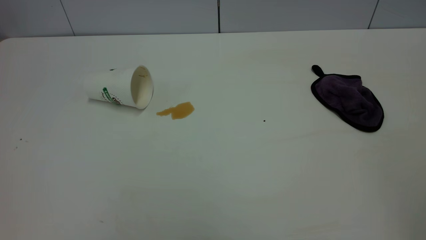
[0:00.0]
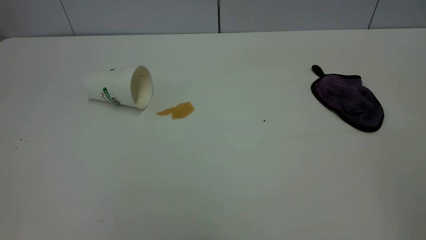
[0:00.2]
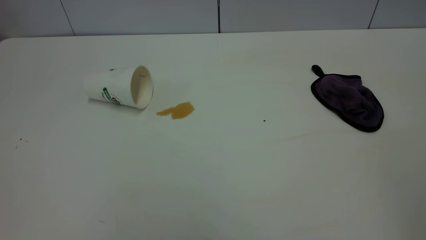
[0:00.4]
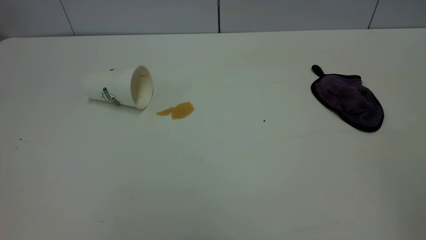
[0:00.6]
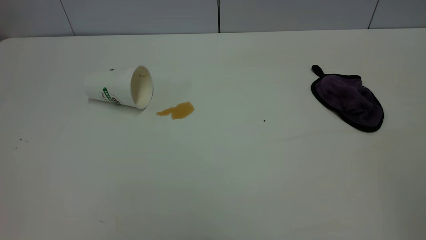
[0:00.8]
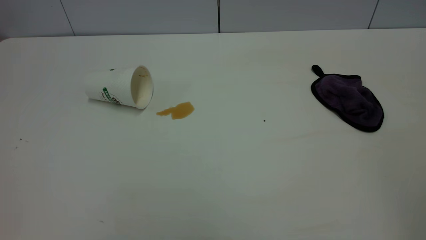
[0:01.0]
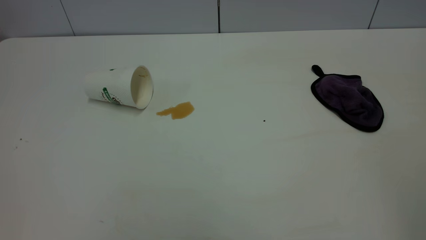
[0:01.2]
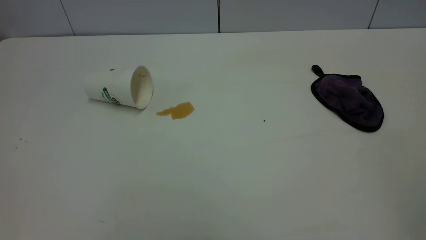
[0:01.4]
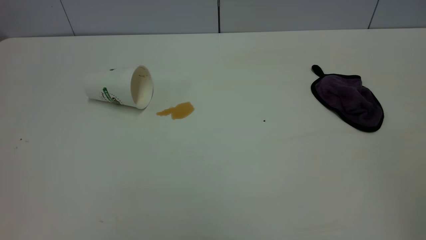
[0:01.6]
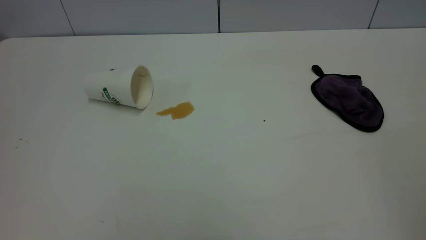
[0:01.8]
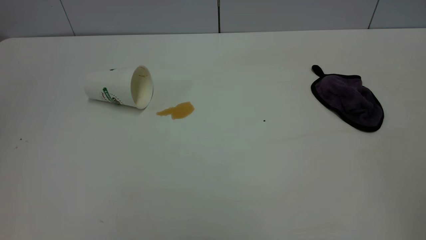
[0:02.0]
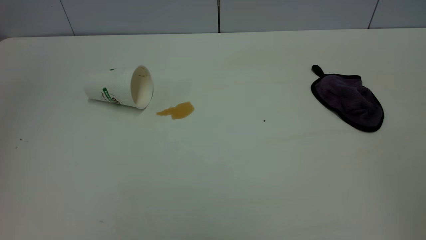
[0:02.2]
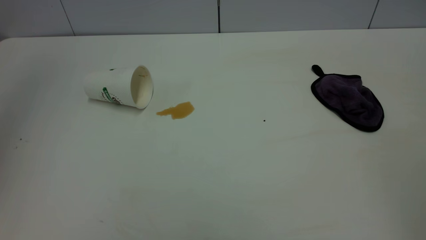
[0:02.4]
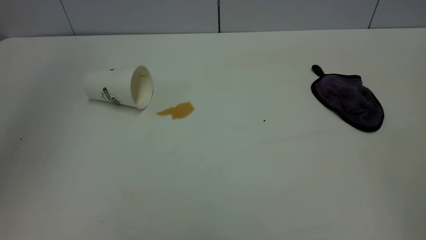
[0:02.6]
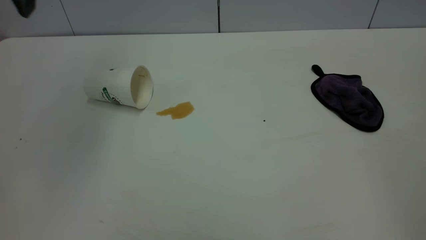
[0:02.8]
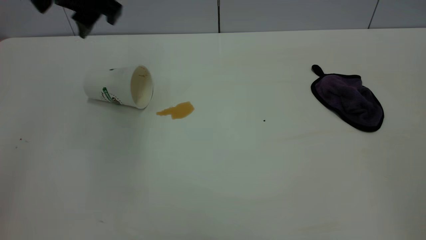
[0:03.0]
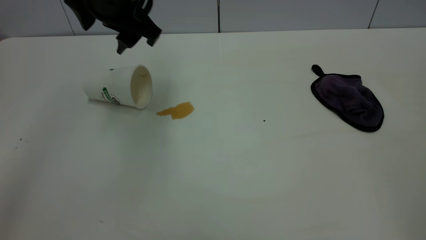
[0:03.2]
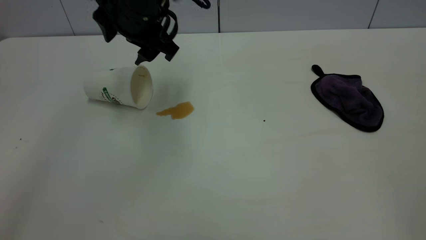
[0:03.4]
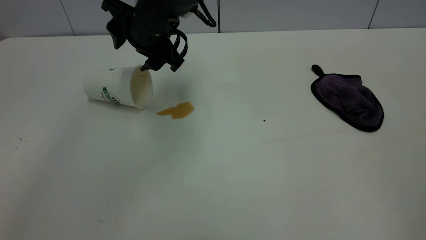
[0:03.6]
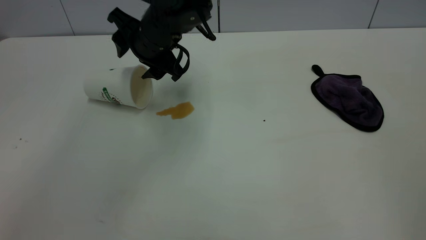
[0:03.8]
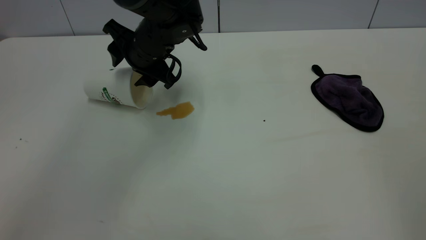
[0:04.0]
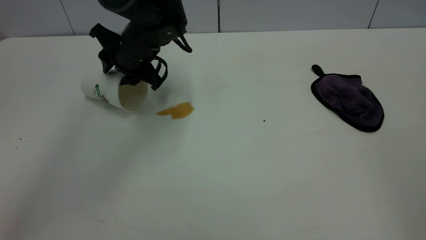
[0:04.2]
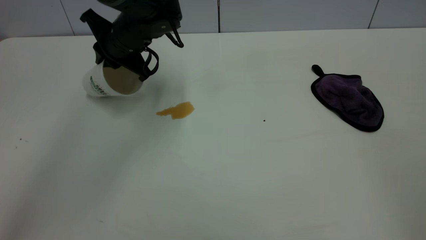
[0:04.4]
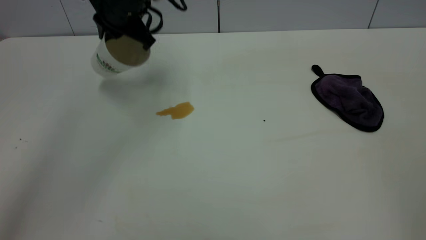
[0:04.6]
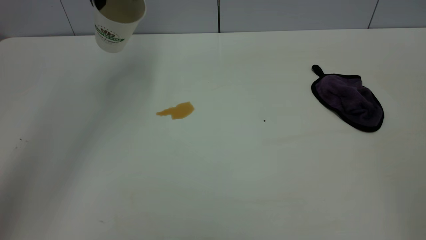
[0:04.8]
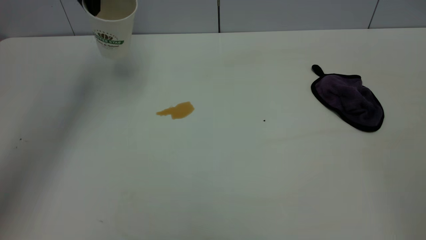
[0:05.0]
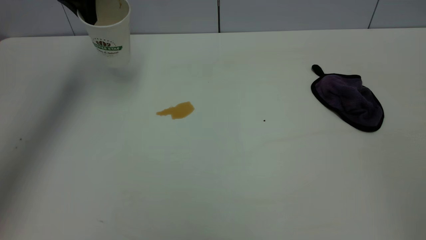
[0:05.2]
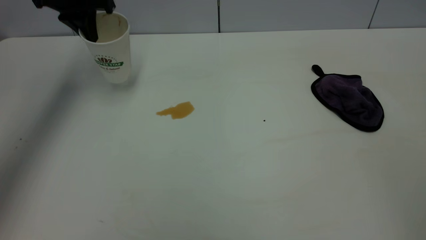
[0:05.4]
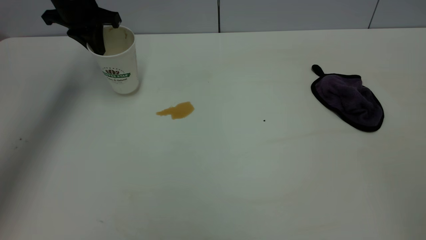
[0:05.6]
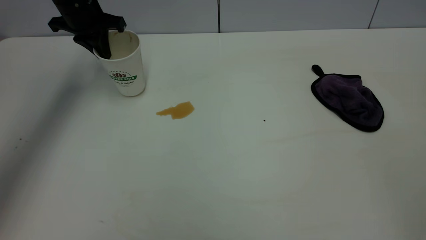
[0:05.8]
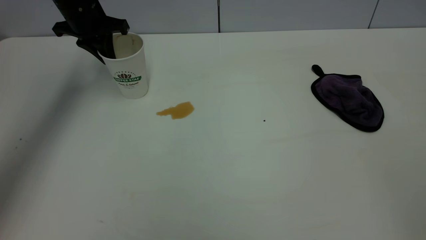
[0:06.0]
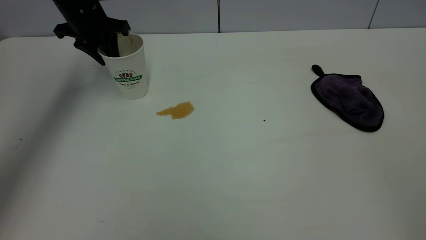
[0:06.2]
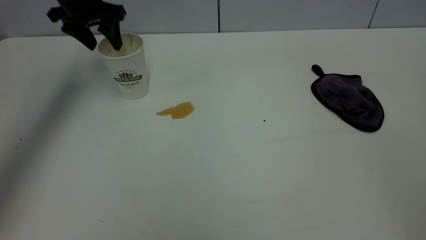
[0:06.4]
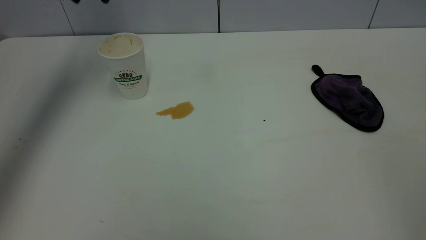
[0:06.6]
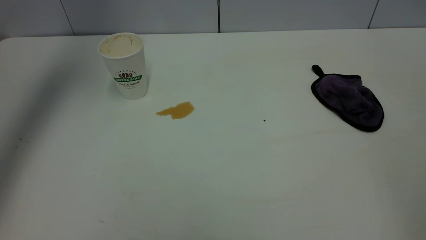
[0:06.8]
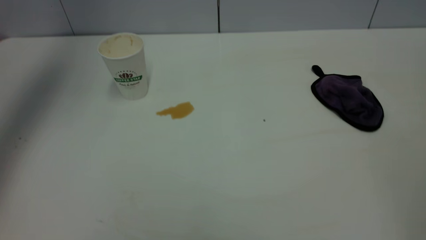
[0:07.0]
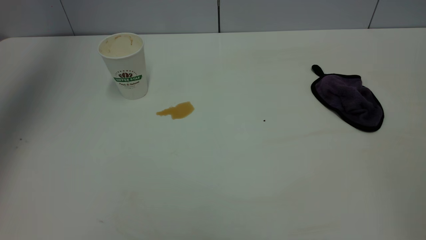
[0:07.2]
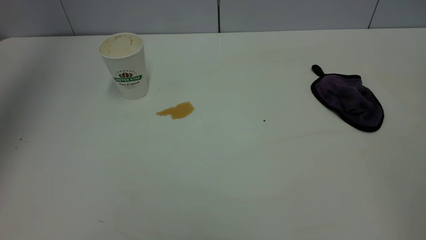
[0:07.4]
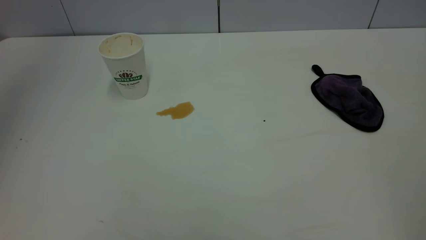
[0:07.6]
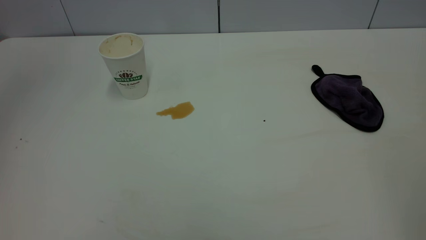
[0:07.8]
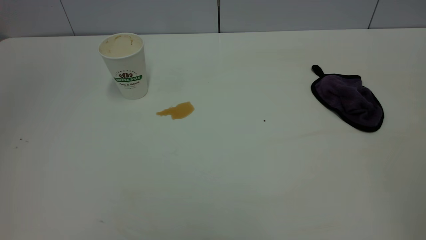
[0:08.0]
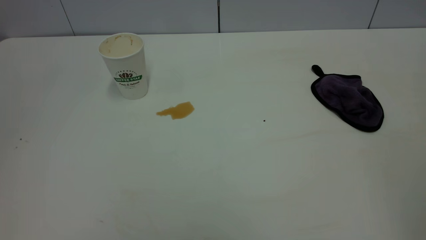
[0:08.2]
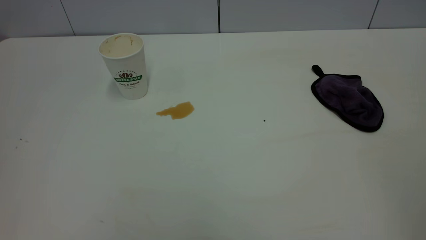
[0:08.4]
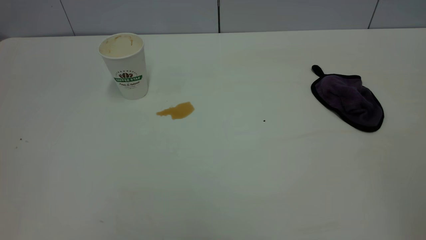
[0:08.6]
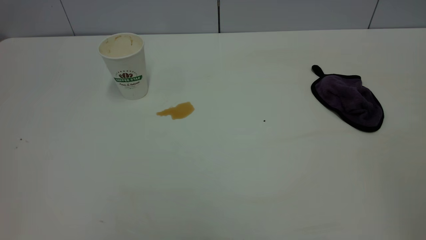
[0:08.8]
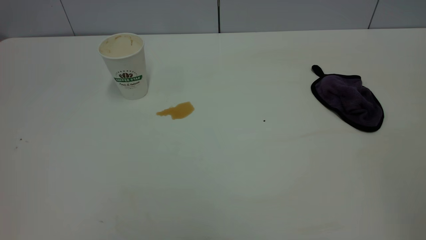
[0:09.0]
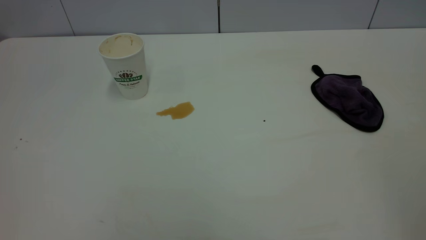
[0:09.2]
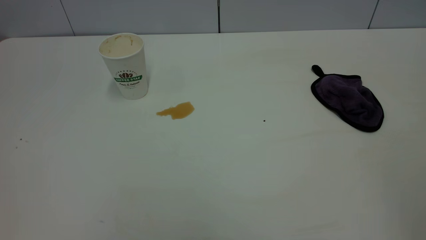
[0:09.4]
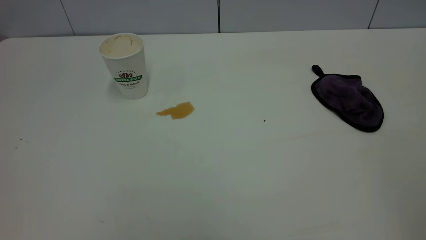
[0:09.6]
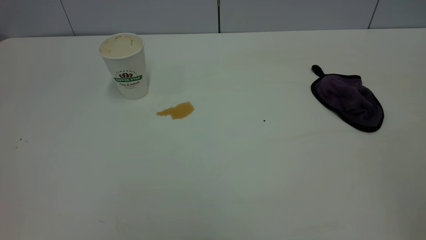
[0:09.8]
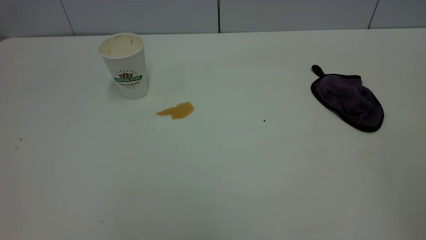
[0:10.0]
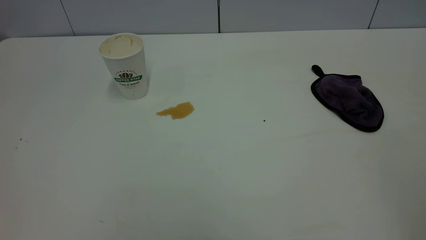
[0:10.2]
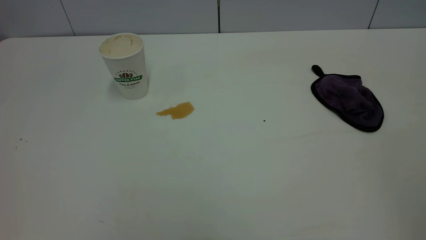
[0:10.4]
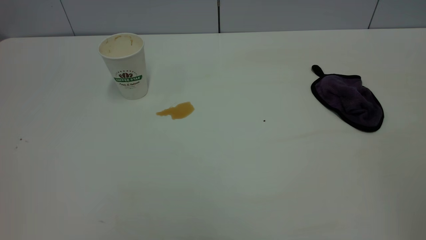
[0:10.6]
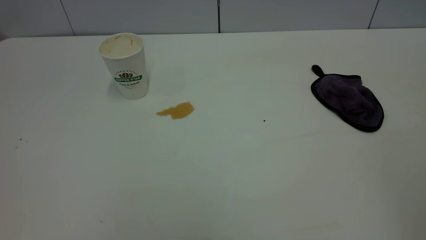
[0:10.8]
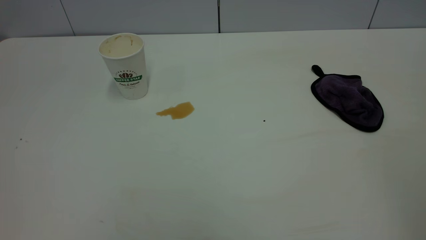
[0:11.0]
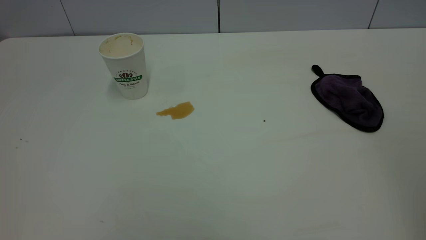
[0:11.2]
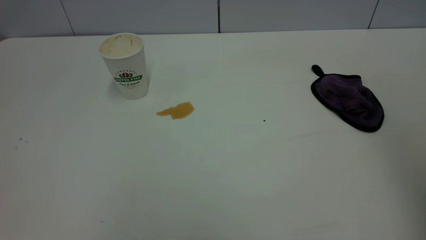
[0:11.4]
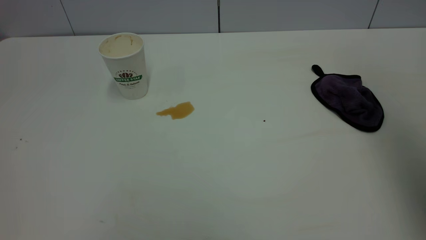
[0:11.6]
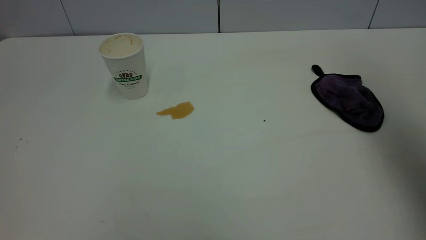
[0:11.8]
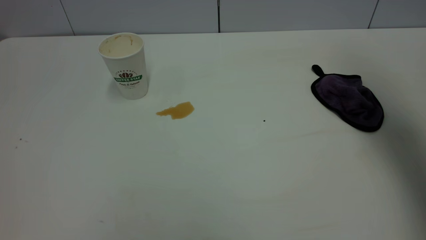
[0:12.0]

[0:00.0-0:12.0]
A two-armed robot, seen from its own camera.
Task of the whole recording: the left gripper pick up the fallen cup and place it upright, the right gripper grasp the purple rag and wipe the tea stain on the table, the right gripper put the purple rag back in its original position.
Step, 0:00.0 to 0:06.4: Stand the paper cup upright.
0:01.6 to 0:03.0: The left gripper is displaced forward and to the right by approximately 40 cm.
0:03.0 to 0:04.4: The left gripper moves downward and forward, approximately 15 cm, and closes.
0:04.4 to 0:06.0: The left gripper moves to the left and forward, roughly 15 cm, and moves approximately 15 cm upward and comes back.
0:06.0 to 0:07.6: The left gripper travels upward and backward by about 50 cm, and opens and closes again.
0:10.4 to 0:12.0: The right gripper moves forward, roughly 35 cm.

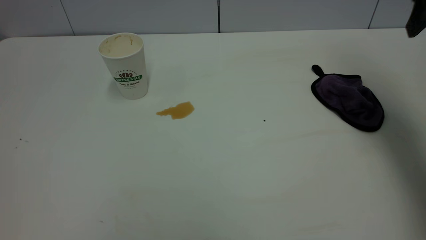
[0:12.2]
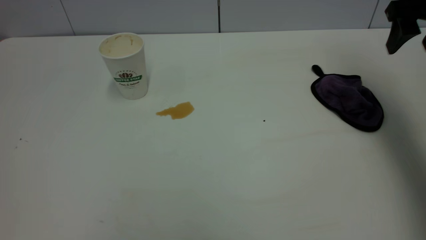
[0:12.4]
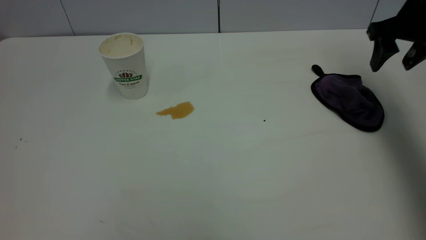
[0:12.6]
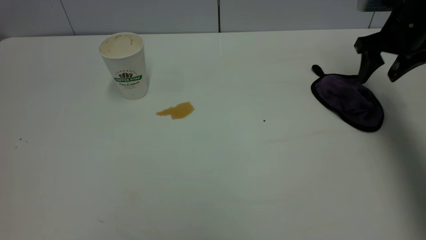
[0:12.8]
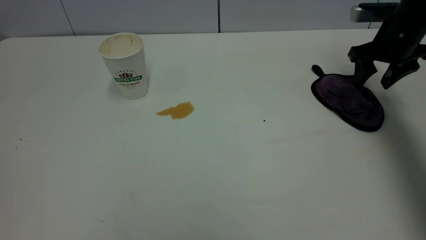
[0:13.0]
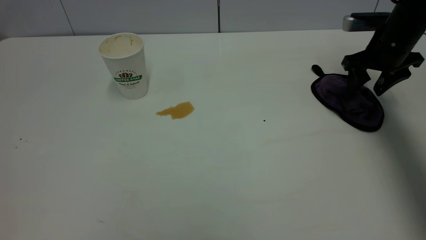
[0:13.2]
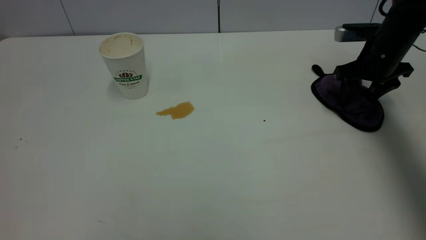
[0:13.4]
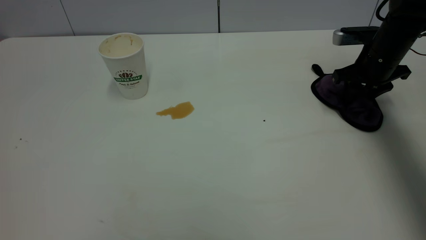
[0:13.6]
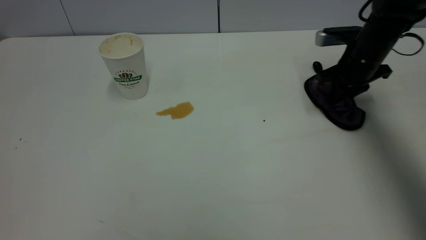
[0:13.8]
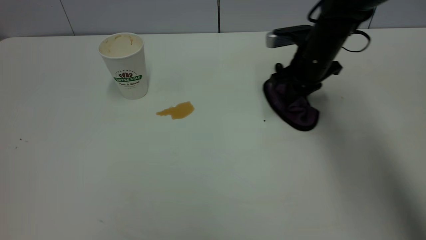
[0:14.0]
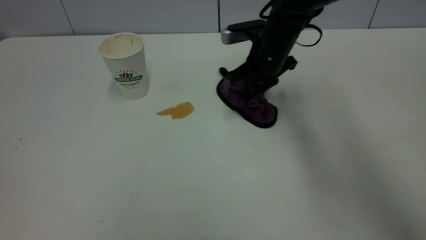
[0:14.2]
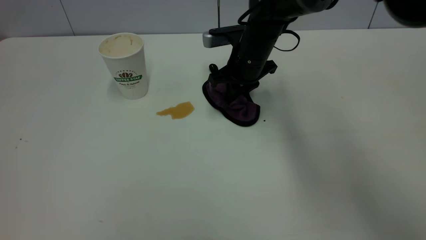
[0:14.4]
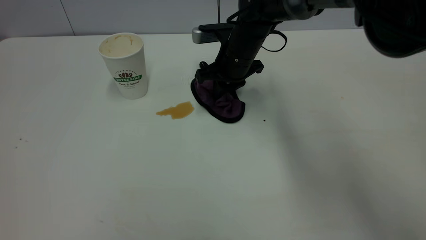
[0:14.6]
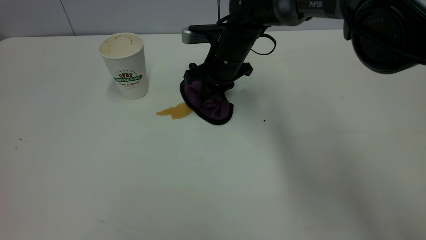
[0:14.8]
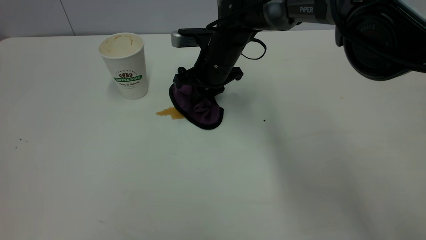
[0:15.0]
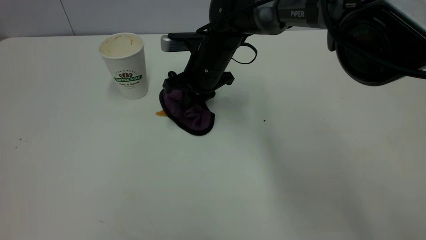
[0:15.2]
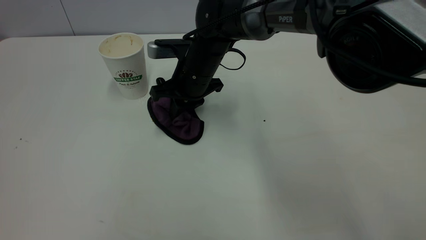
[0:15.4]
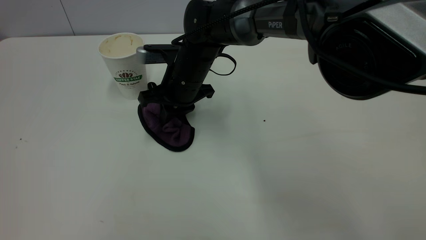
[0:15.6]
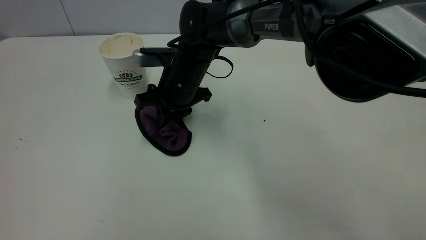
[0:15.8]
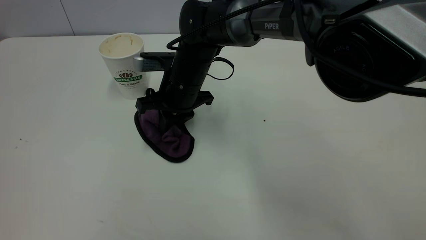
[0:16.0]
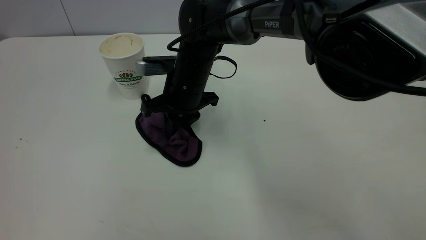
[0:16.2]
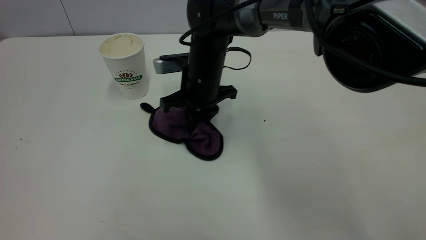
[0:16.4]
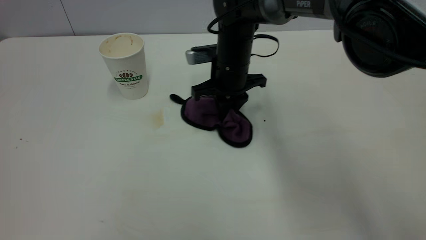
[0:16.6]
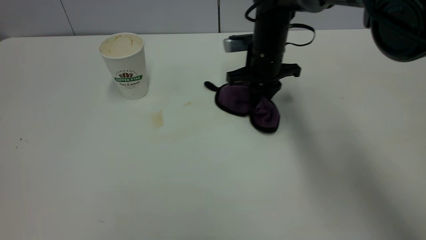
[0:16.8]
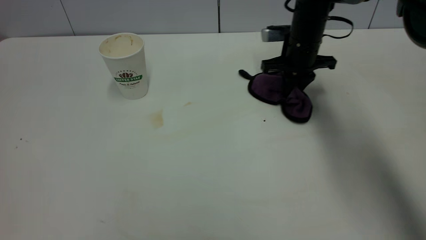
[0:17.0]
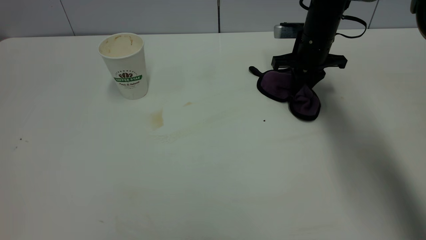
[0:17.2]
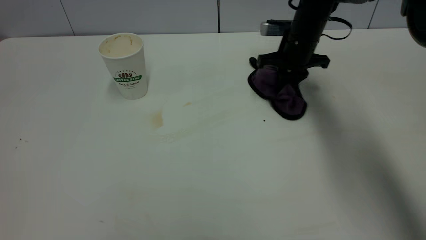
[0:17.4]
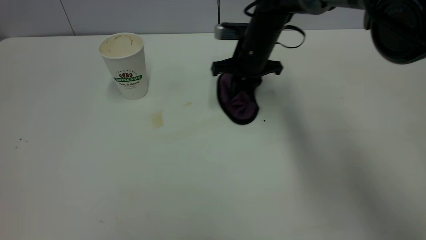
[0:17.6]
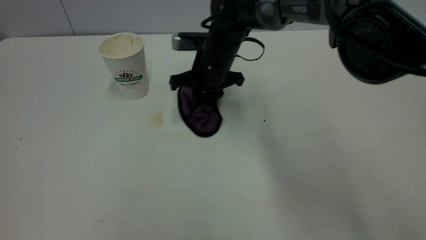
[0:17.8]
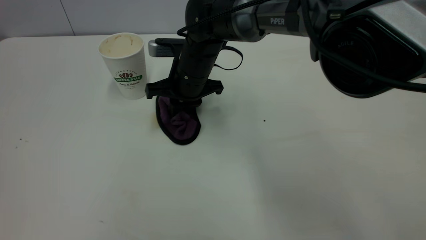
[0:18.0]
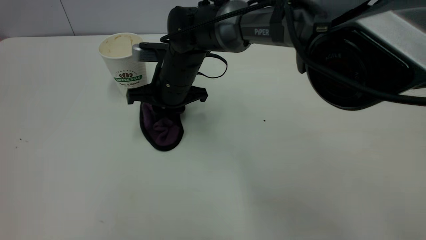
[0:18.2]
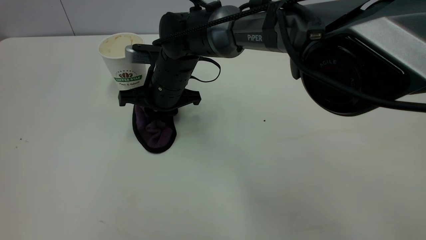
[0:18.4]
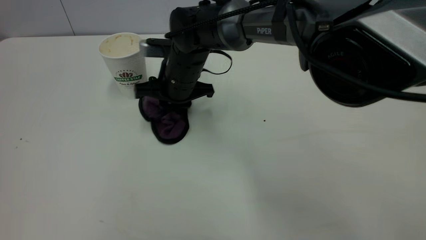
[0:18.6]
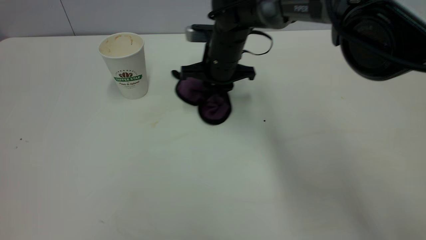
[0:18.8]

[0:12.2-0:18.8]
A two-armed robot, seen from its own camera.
Task of the whole recording: the left gripper pick up the fallen cup and place it upright, the right gripper grasp the purple rag and wipe the tea stain on the table, the right gripper put the purple rag back in its original position.
0:12.2 to 0:13.8: The right gripper heads downward, forward and to the left, covering about 20 cm, and closes its fingers.
0:13.8 to 0:15.4: The right gripper shifts some 30 cm to the left.
0:15.4 to 0:17.2: The right gripper goes approximately 20 cm to the right.
0:17.2 to 0:18.8: The right gripper heads to the left, covering approximately 15 cm.
